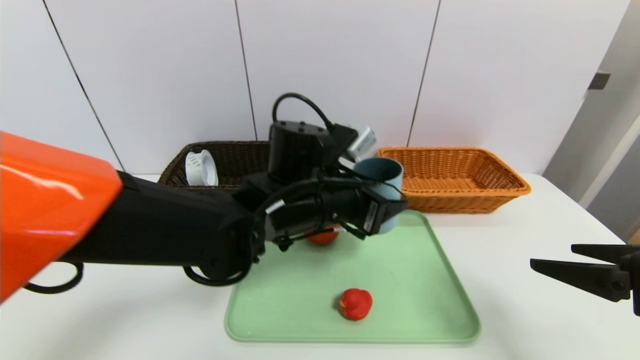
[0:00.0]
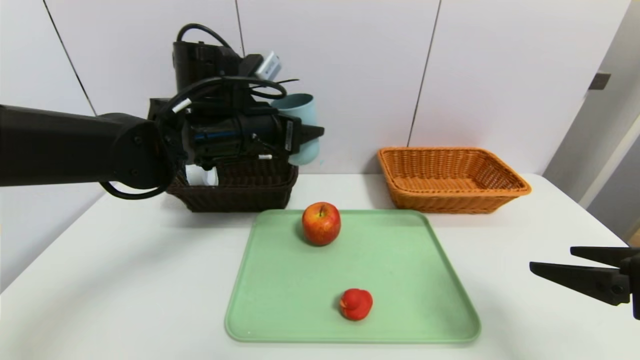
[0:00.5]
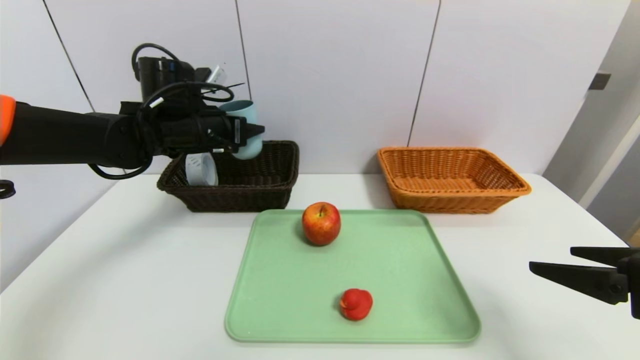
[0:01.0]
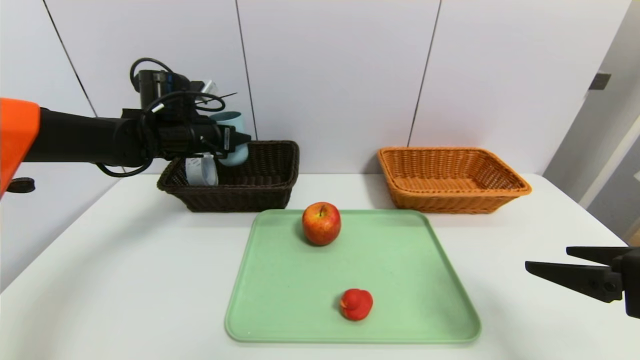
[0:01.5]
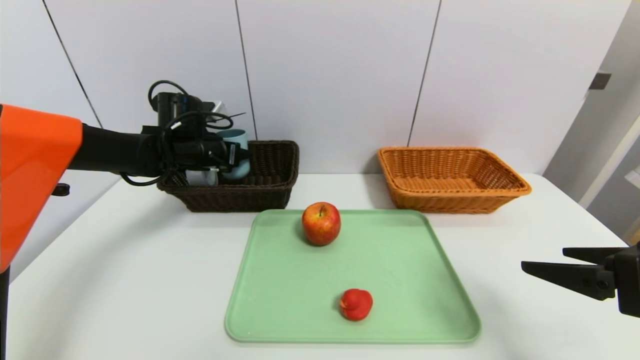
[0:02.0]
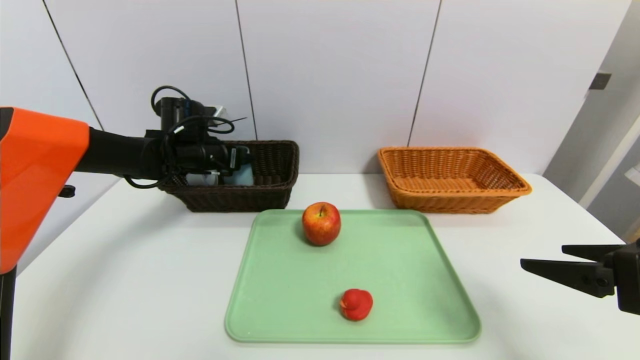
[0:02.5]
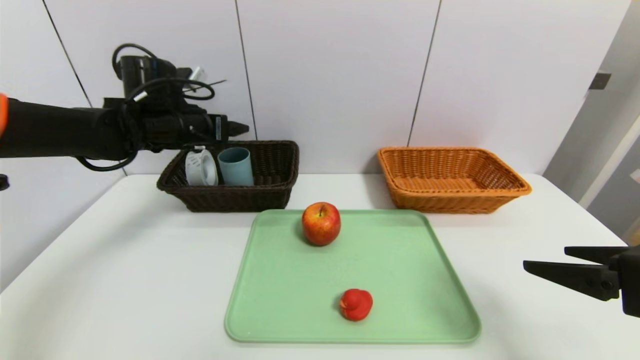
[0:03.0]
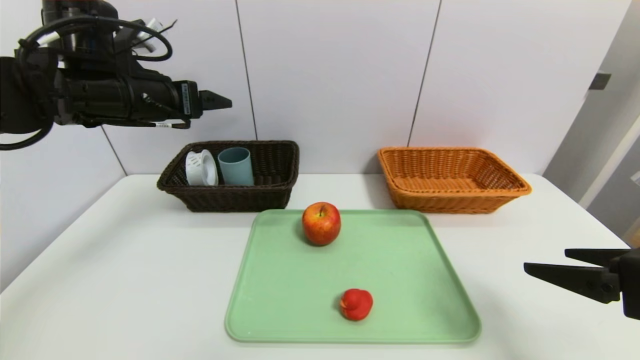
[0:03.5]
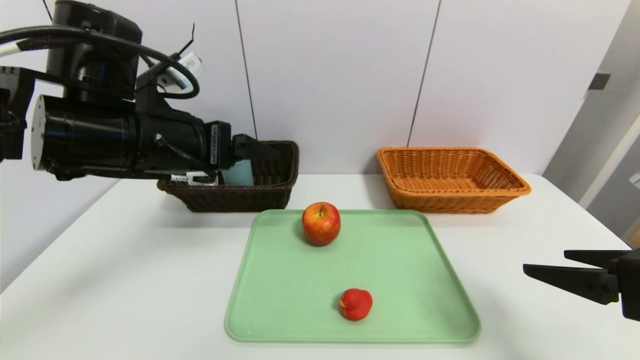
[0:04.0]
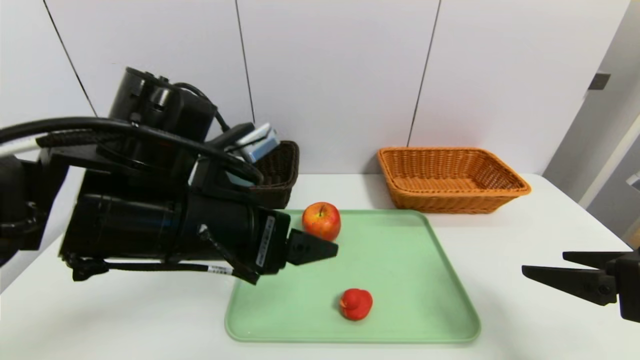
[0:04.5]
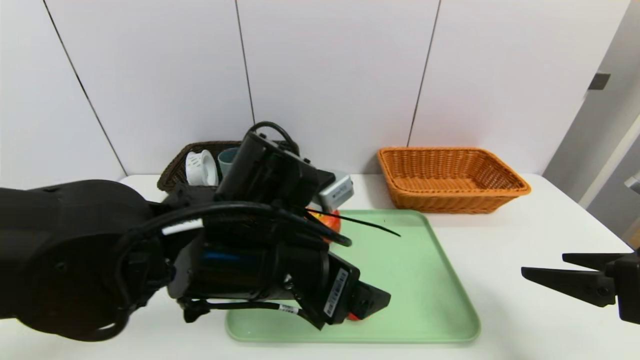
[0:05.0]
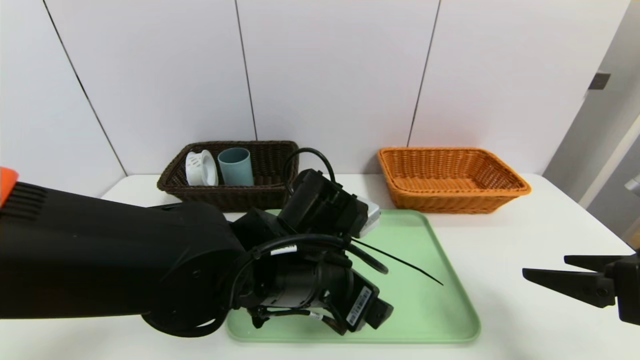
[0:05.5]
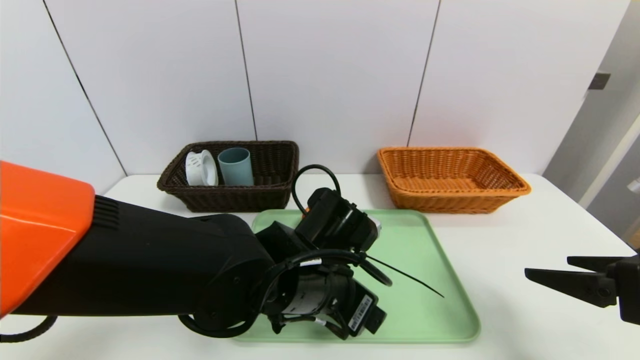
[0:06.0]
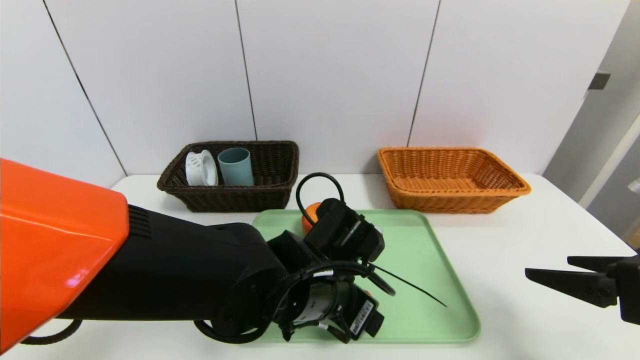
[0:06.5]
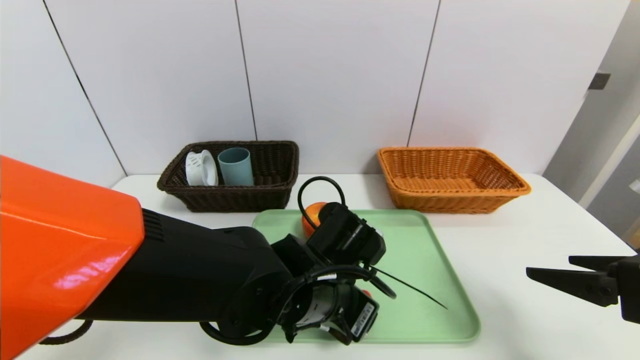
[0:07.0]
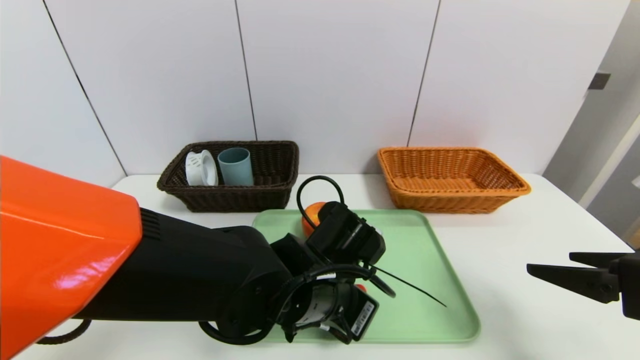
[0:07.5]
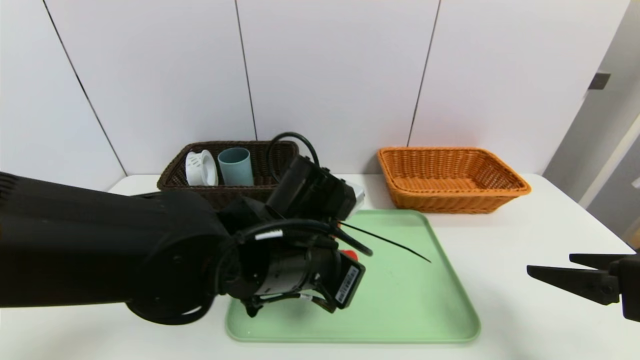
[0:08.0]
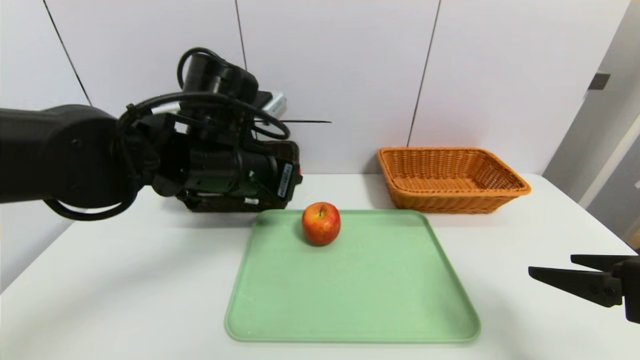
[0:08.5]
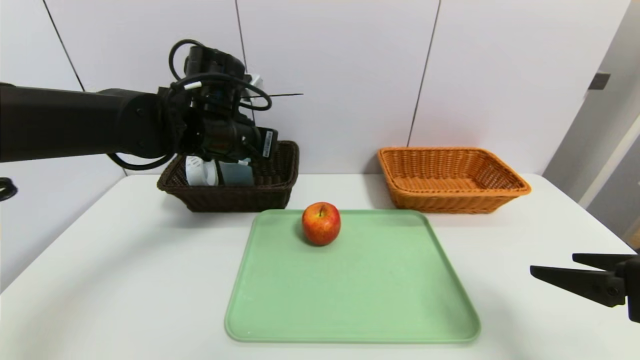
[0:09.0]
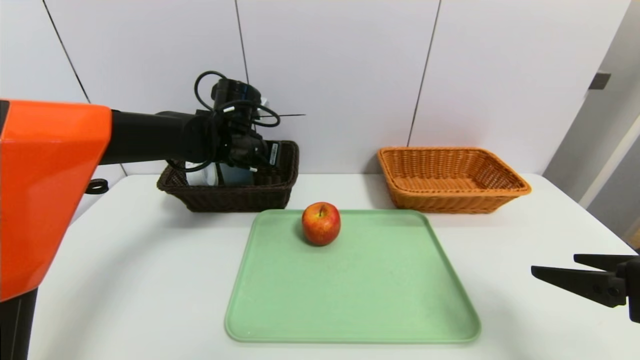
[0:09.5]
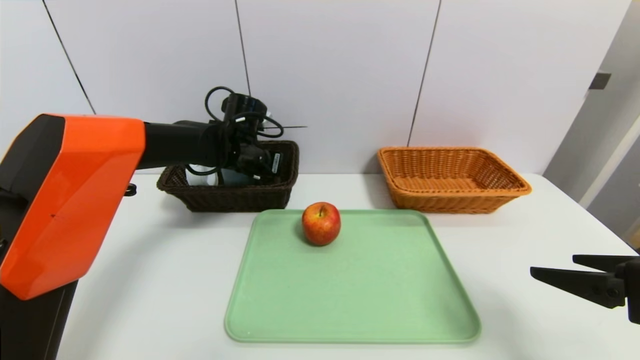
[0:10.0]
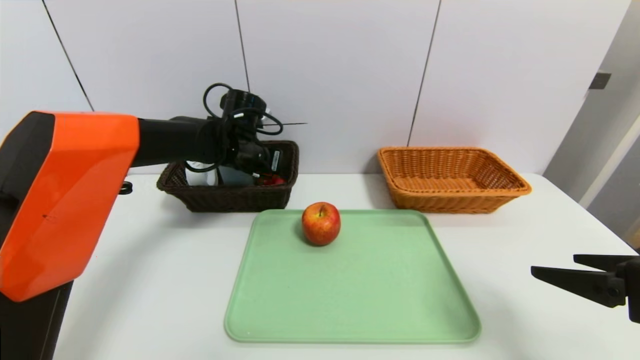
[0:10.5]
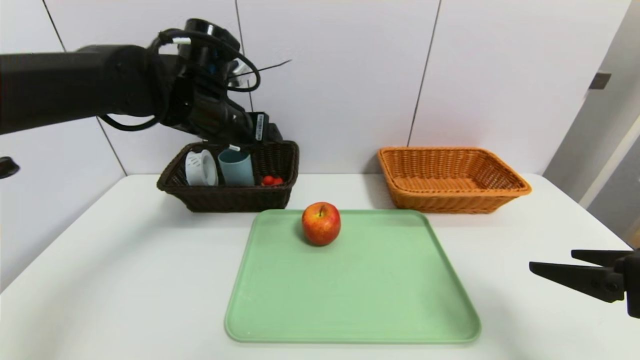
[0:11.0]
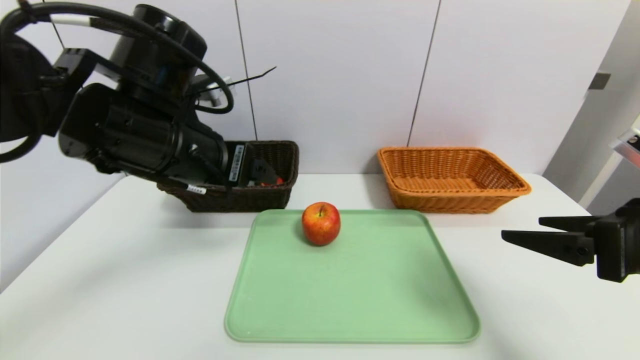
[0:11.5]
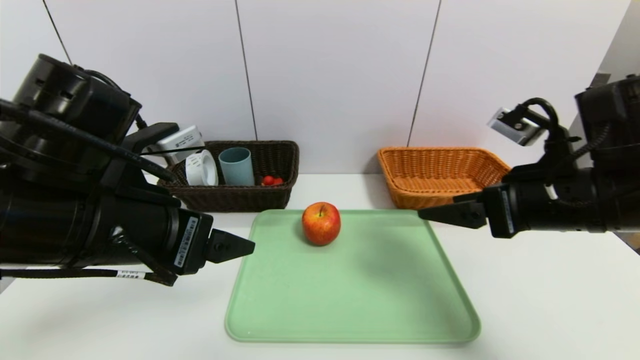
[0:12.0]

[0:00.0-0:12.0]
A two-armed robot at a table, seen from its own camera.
Task of the whole recording: place the food in the right basket with the right gripper, and place the non food items in the left basket with the left gripper.
Step, 0:00.0 to 0:02.5: Grasp the blue cup and put it in the left basket.
Step, 0:03.0 to 0:10.5: Grasp the red duck and put it in the left basket.
0:00.0 to 0:02.0: The left gripper goes approximately 25 cm to the left and forward.
0:02.0 to 0:04.0: The left gripper goes approximately 20 cm backward and upward, and opens.
0:04.0 to 0:06.0: The left gripper goes roughly 20 cm to the right and downward.
0:06.0 to 0:08.0: The left gripper closes.
0:08.0 to 0:10.0: The left gripper shifts approximately 25 cm forward and to the left.
0:10.0 to 0:12.0: The left gripper shifts some 25 cm backward, and opens. Meanwhile the right gripper travels forward and to the left by roughly 10 cm.

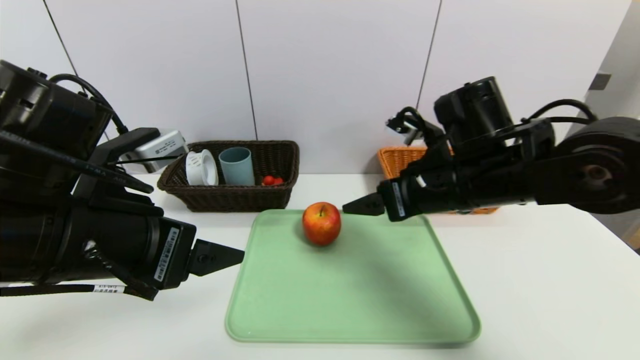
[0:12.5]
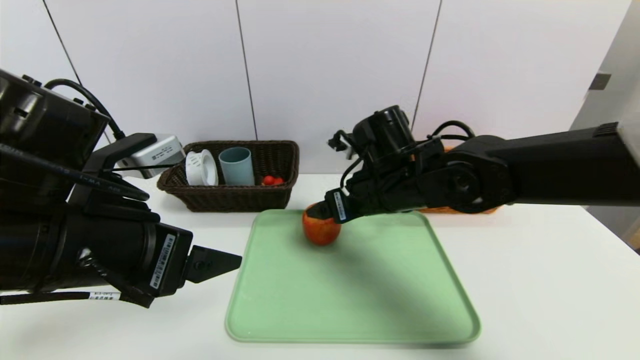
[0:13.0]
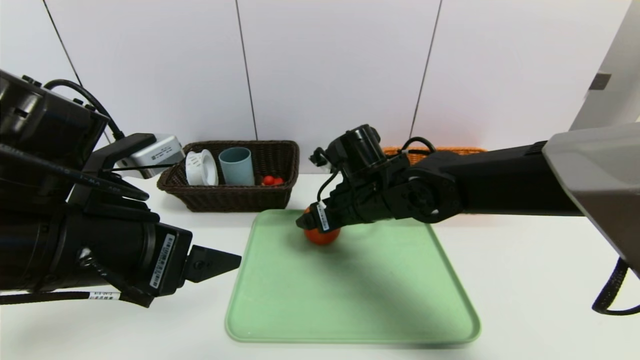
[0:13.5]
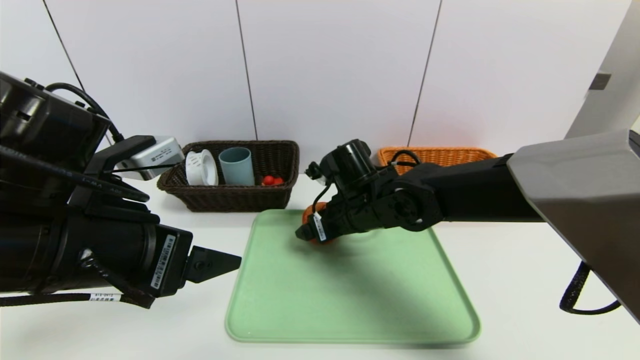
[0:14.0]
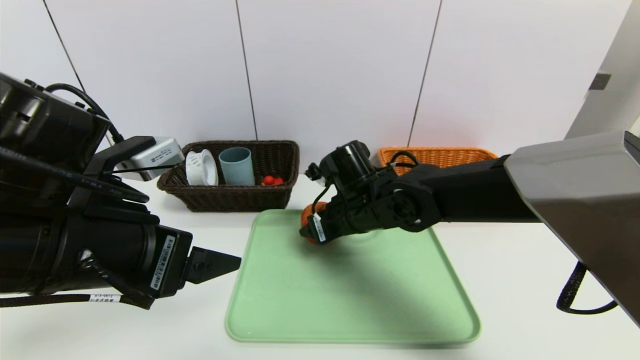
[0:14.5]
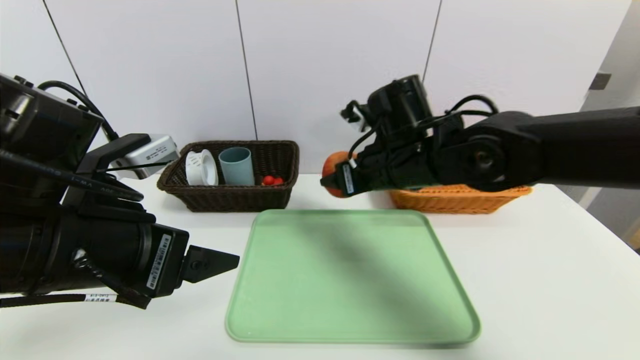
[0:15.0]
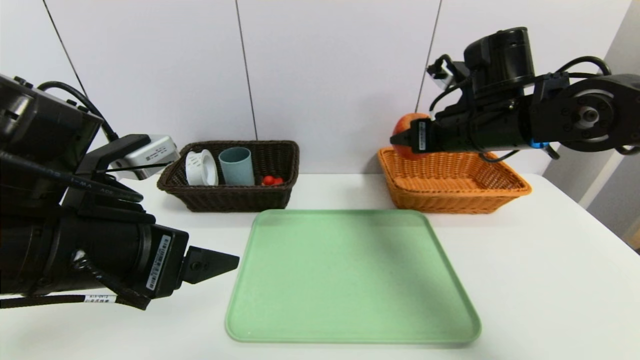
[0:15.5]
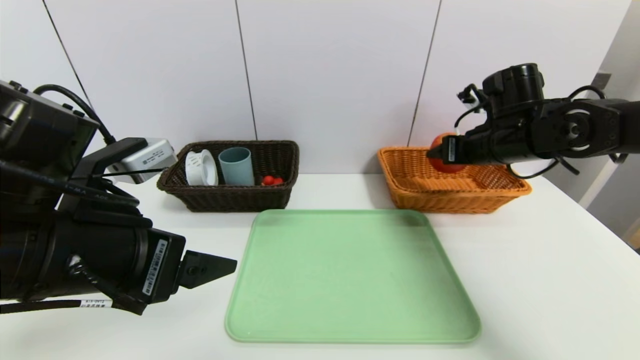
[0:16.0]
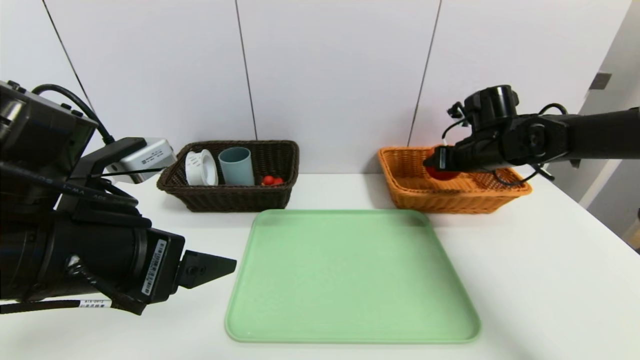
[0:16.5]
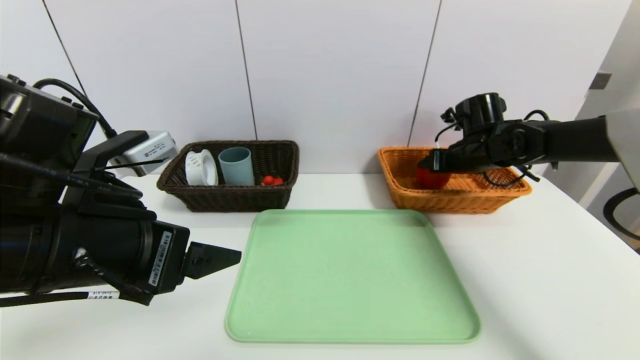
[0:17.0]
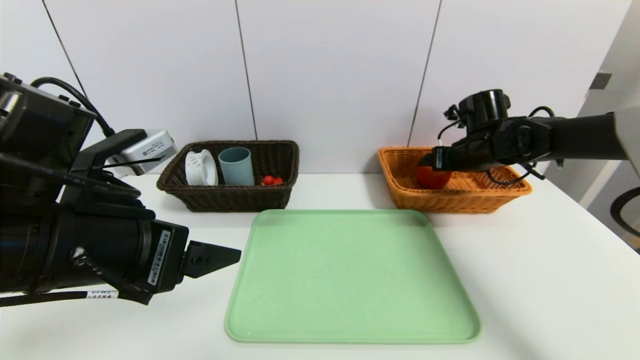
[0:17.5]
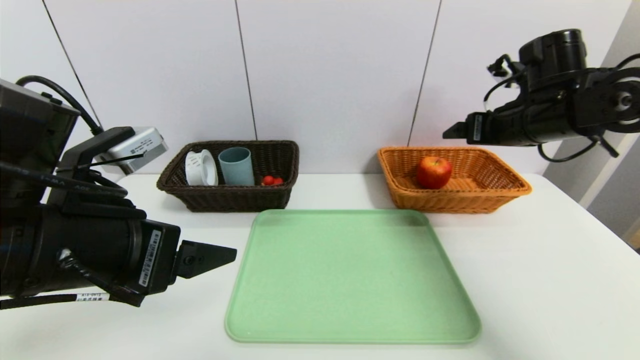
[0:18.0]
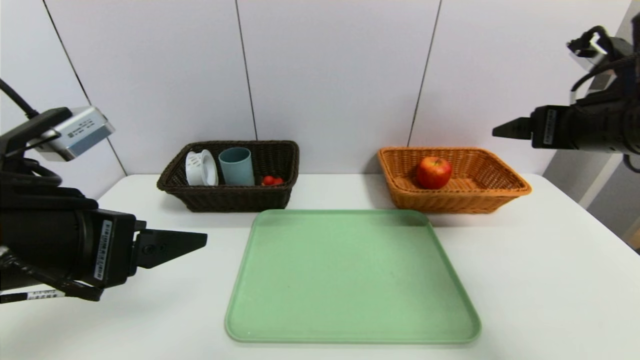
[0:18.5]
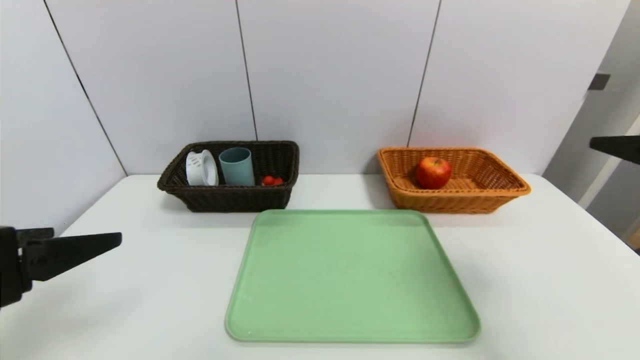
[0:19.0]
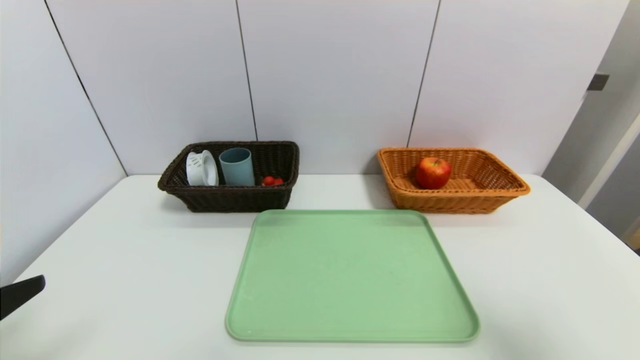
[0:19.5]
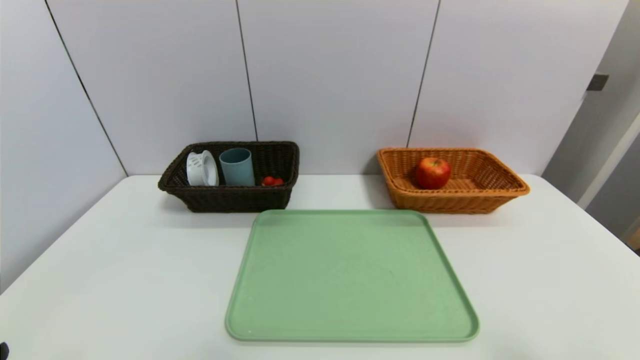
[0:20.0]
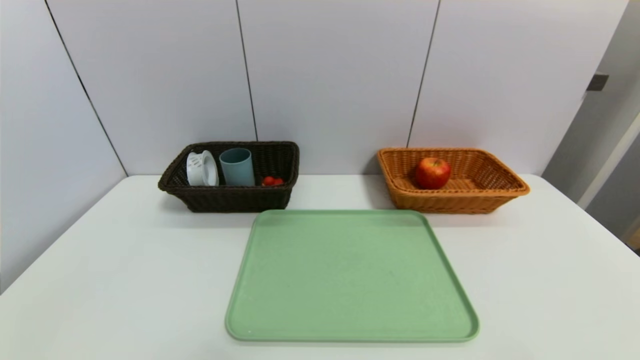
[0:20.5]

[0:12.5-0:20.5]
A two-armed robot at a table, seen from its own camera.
Task of the whole recording: place the food in the right basket with the right gripper, and place the non food items in the left basket with the left gripper.
Step, 0:12.5 to 0:17.0: Grasp the apple and put it in the right basket.
0:12.5 to 0:14.5: The right gripper moves to the left, downward and forward, about 15 cm, and closes up.
0:14.5 to 0:16.5: The right gripper goes roughly 20 cm to the right.
0:16.5 to 0:18.5: The right gripper is displaced backward and upward by some 20 cm, and opens up.
0:18.5 to 0:20.5: The right gripper goes some 30 cm backward. Meanwhile the left gripper is displaced backward, downward and to the left by about 20 cm.
